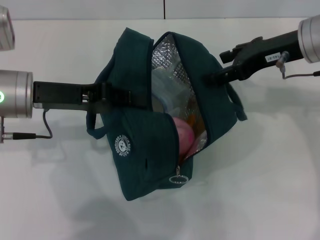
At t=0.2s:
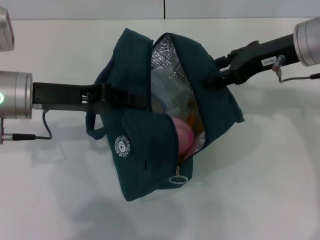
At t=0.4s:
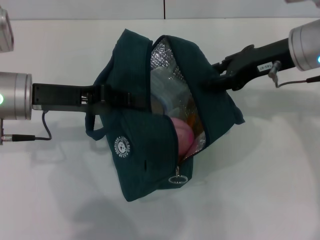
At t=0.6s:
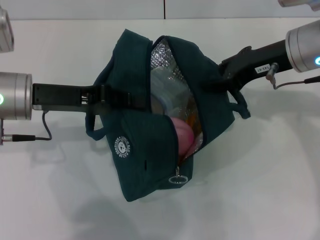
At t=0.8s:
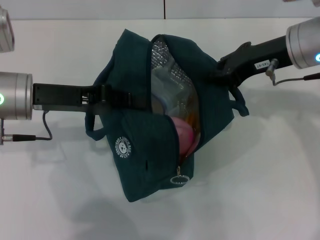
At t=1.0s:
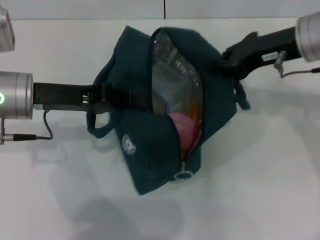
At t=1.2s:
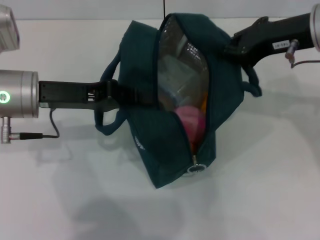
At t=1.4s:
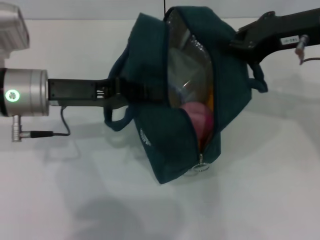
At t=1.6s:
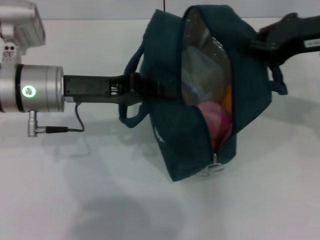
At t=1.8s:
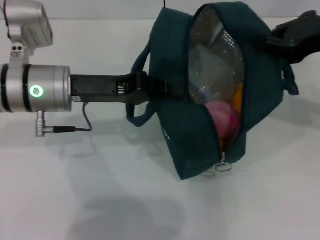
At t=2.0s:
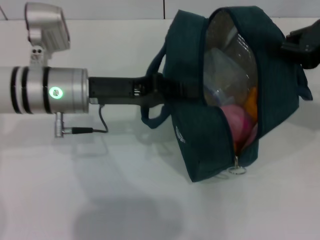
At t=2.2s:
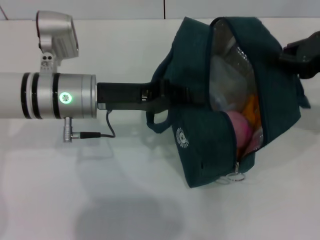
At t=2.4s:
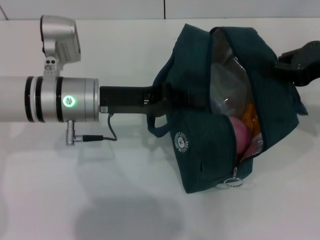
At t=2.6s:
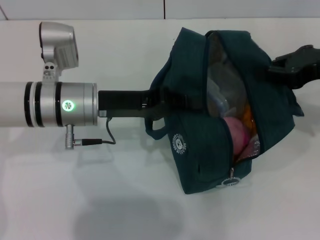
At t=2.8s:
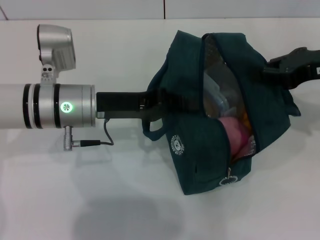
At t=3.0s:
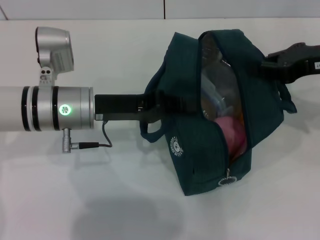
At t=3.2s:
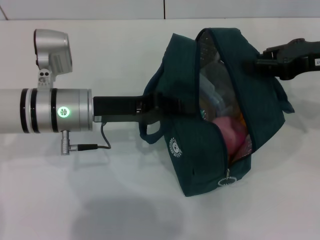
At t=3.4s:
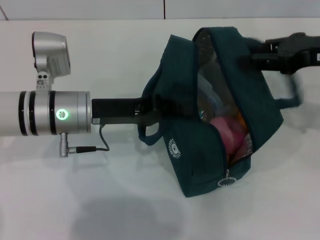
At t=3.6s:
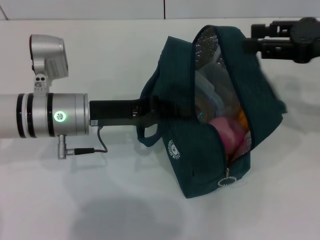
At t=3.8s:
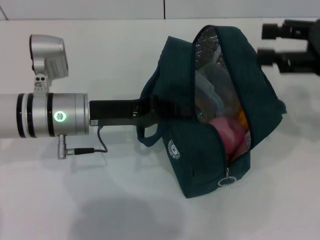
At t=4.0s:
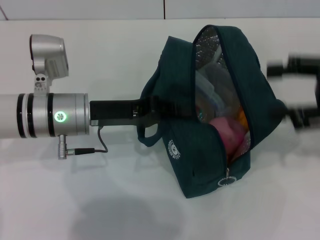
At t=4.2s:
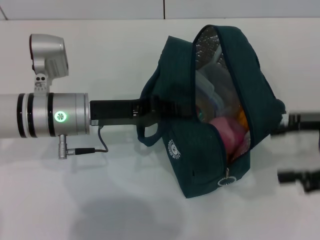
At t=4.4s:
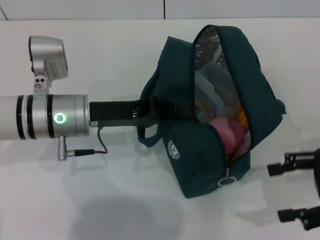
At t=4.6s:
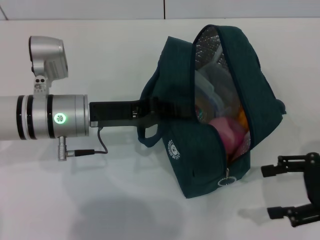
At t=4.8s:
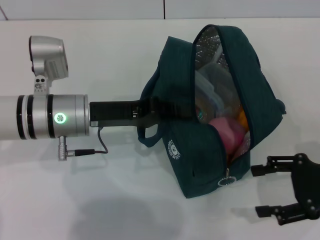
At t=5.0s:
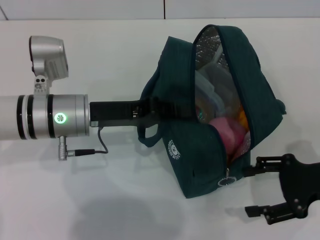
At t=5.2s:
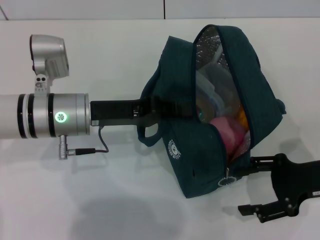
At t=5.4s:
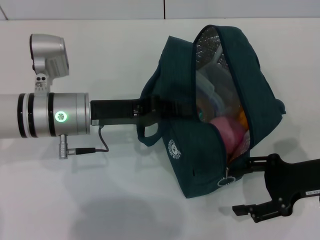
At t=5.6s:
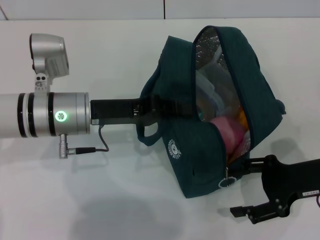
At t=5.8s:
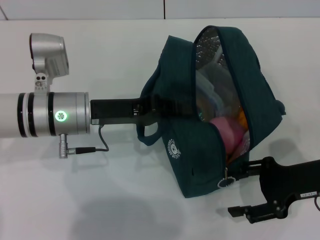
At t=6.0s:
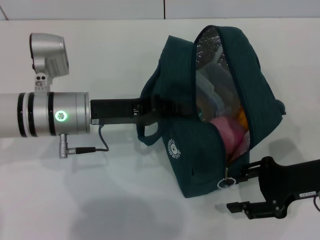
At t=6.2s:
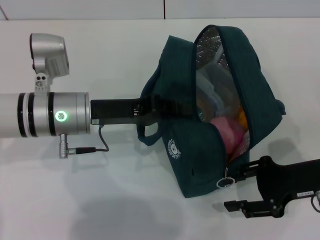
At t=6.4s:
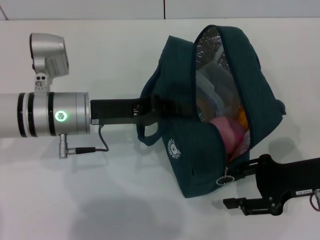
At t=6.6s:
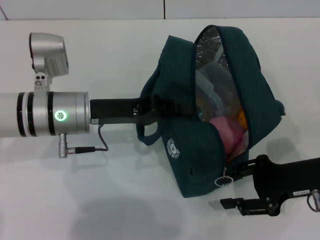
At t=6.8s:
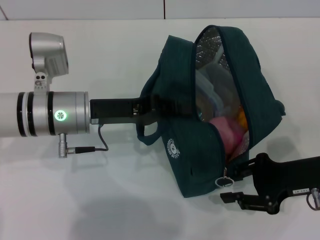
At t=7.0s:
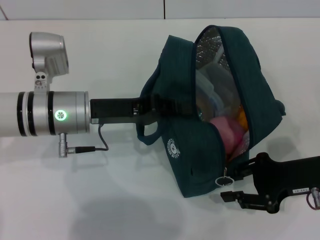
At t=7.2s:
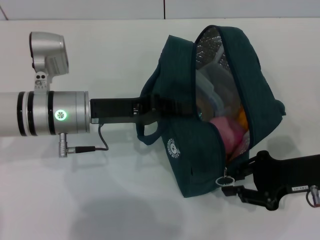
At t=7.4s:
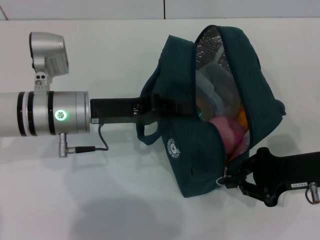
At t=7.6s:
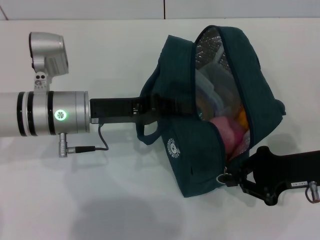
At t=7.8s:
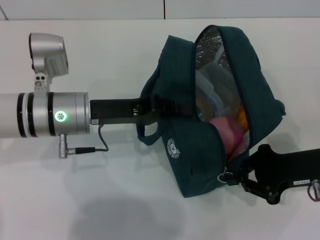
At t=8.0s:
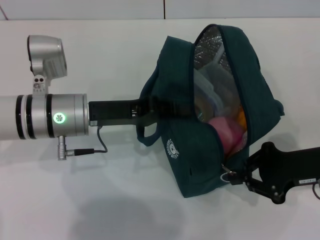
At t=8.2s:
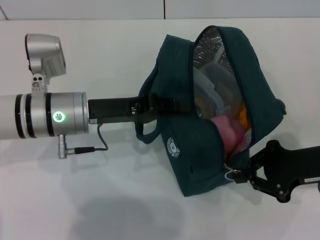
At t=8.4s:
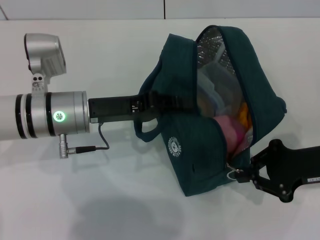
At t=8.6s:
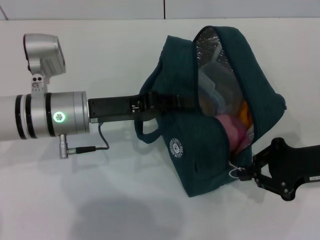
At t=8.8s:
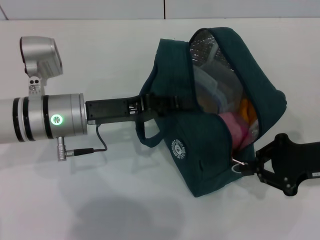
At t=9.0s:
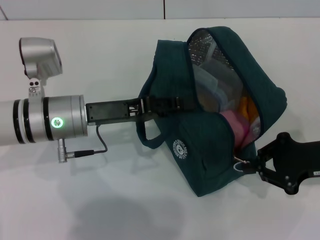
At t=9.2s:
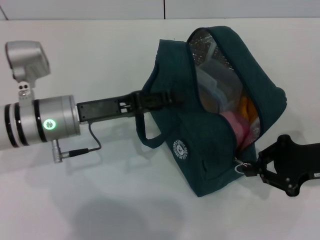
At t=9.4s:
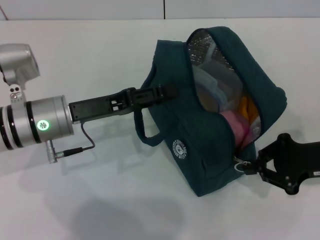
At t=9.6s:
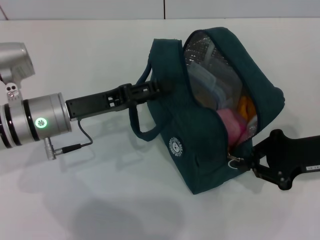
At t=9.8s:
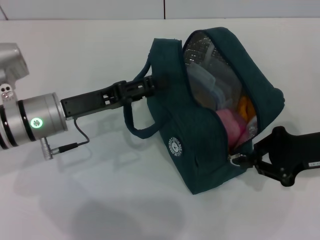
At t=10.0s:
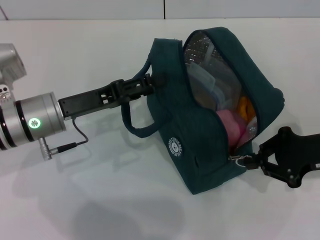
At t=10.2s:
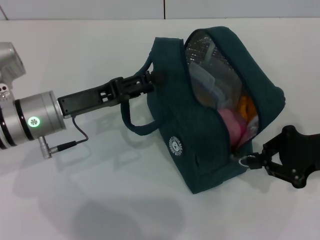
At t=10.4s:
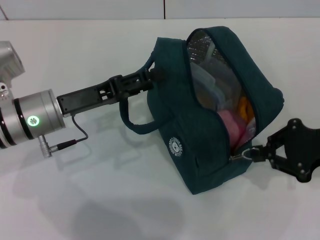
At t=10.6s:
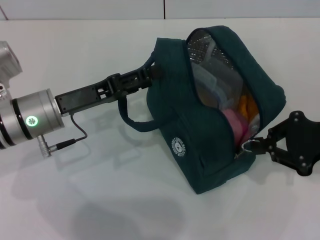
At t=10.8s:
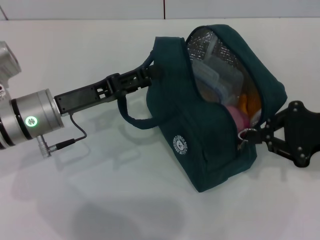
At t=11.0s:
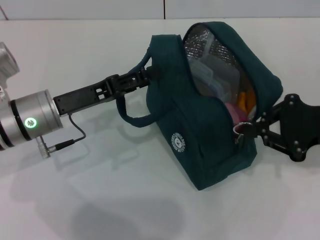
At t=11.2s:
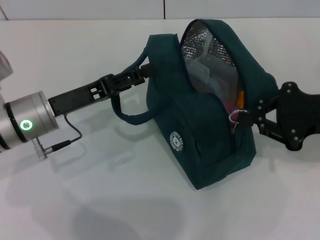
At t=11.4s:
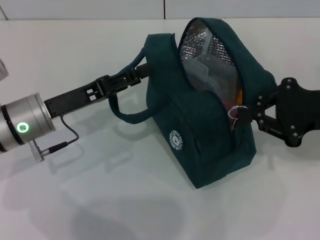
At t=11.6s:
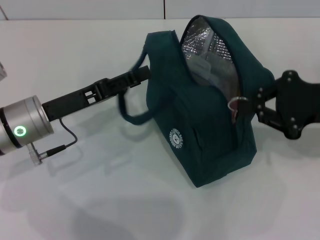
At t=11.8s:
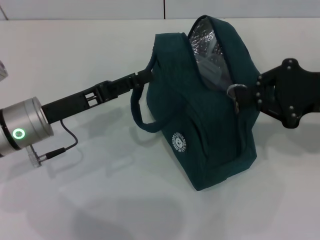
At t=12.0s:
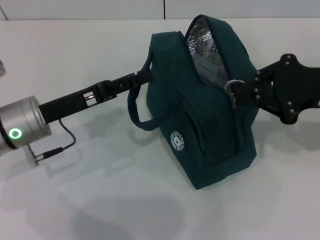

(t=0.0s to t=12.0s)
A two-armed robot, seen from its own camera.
Step, t=0.0s - t=3.6s: Hold the lunch bag with your right hand.
Step, t=3.8s - t=9.6s: Hold the lunch bag with your left hand.
t=0.0s - t=1.6s: The right gripper ends up roughly 5 cm from where it was, and closes up.
t=1.6s - t=3.0s: The right gripper moves roughly 5 cm.
t=3.0s - t=4.4s: The right gripper shifts approximately 10 cm backward and downward, and opens up.
t=4.4s - t=6.0s: The right gripper is displaced downward and to the left by approximately 10 cm.
t=6.0s - t=7.6s: The right gripper closes up.
t=7.6s - t=9.0s: The grippers move only a little.
t=9.0s - t=10.4s: The left gripper opens.
t=10.4s - t=12.0s: The right gripper shifts by approximately 5 cm.

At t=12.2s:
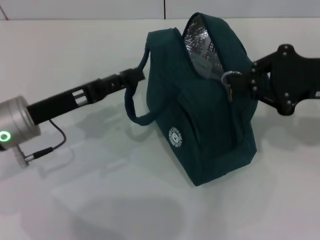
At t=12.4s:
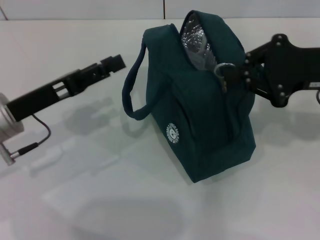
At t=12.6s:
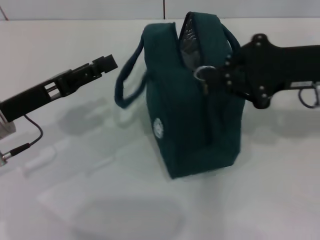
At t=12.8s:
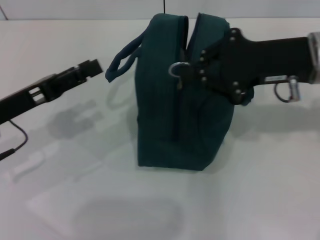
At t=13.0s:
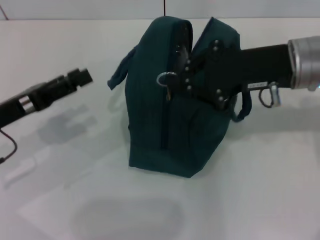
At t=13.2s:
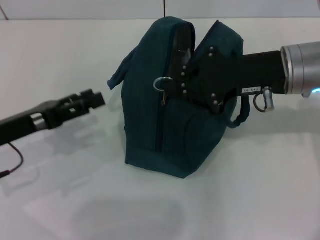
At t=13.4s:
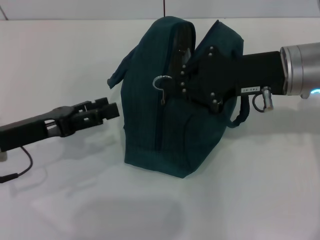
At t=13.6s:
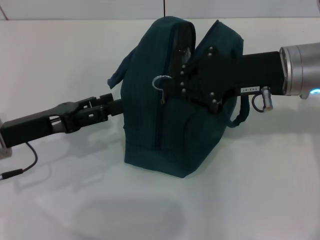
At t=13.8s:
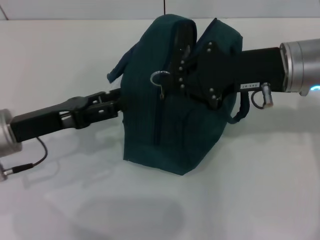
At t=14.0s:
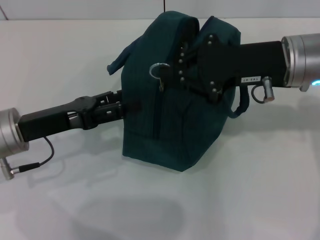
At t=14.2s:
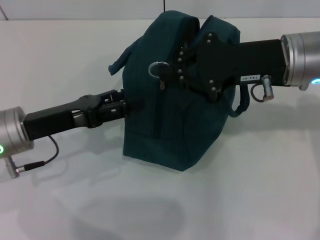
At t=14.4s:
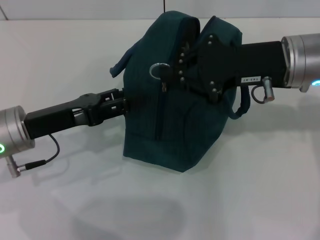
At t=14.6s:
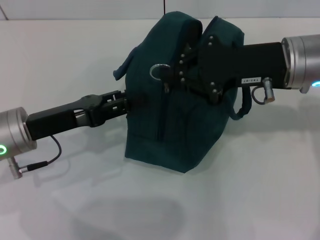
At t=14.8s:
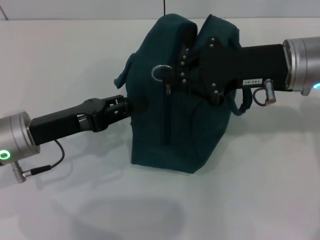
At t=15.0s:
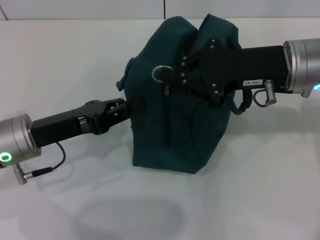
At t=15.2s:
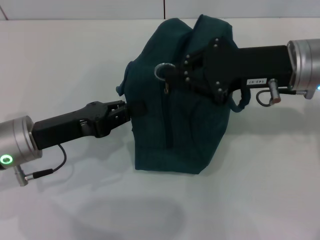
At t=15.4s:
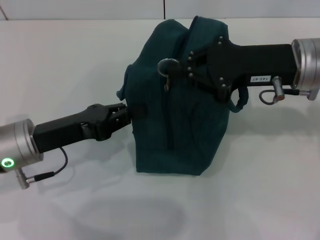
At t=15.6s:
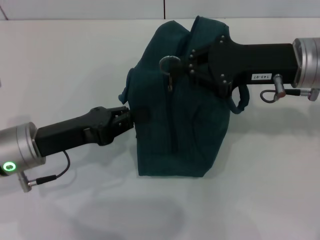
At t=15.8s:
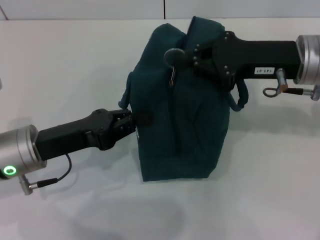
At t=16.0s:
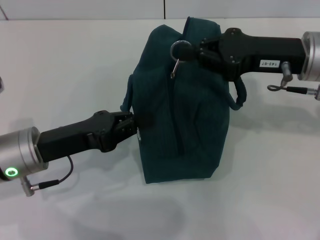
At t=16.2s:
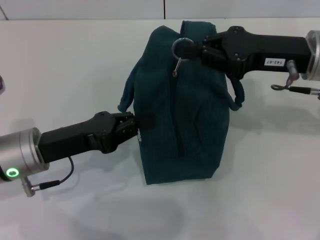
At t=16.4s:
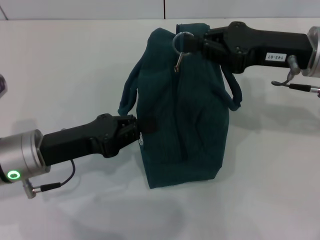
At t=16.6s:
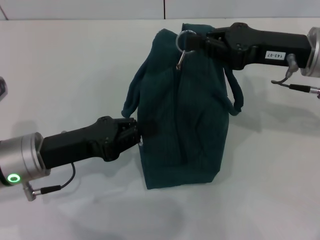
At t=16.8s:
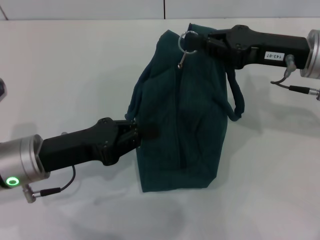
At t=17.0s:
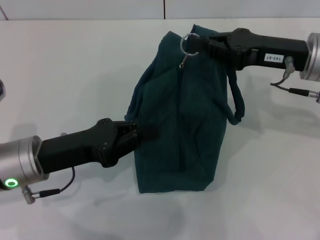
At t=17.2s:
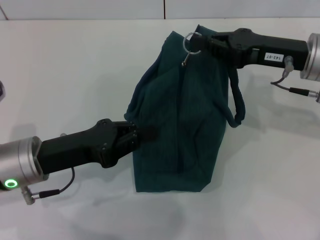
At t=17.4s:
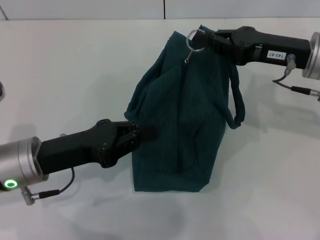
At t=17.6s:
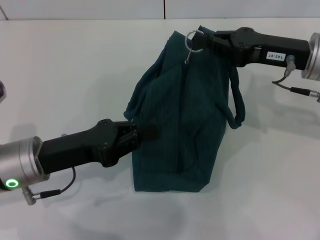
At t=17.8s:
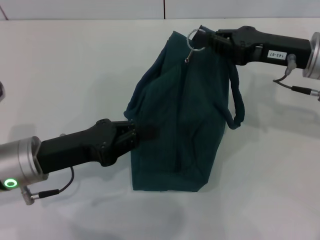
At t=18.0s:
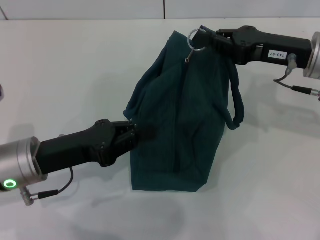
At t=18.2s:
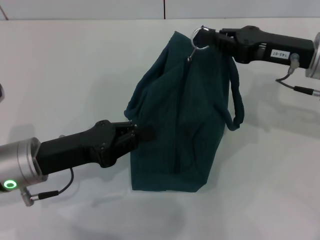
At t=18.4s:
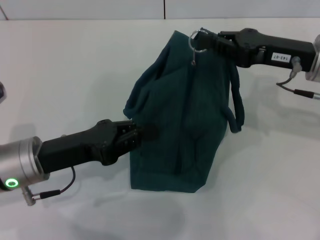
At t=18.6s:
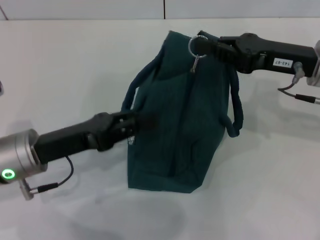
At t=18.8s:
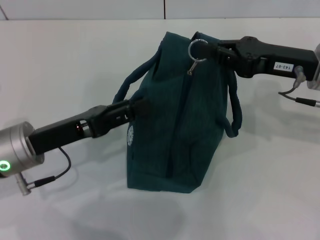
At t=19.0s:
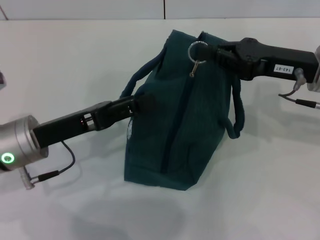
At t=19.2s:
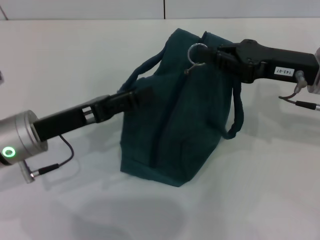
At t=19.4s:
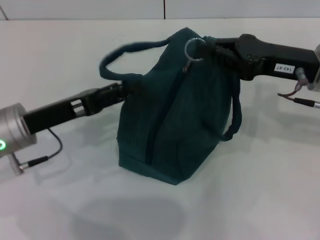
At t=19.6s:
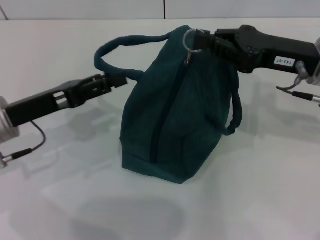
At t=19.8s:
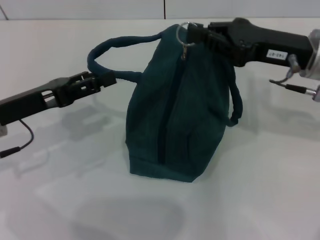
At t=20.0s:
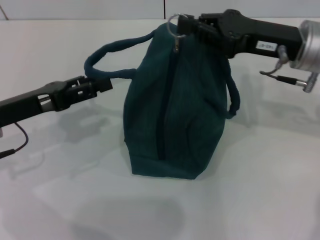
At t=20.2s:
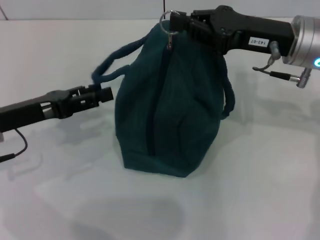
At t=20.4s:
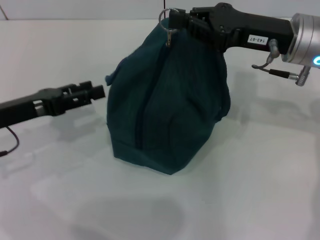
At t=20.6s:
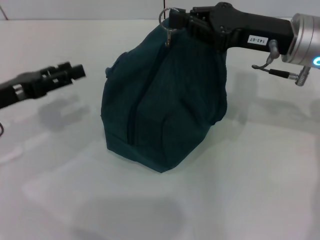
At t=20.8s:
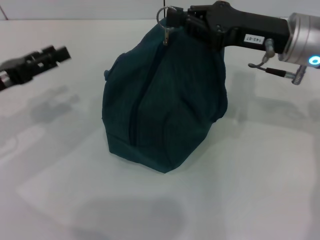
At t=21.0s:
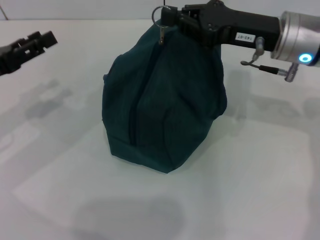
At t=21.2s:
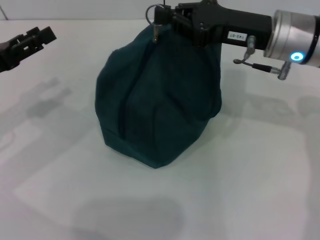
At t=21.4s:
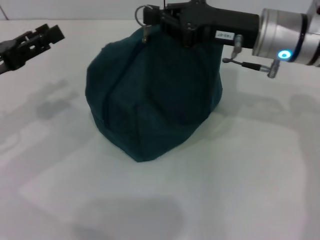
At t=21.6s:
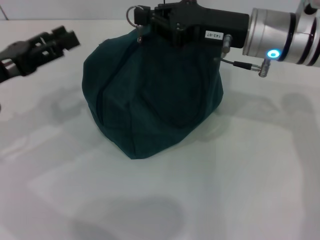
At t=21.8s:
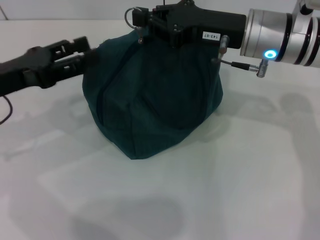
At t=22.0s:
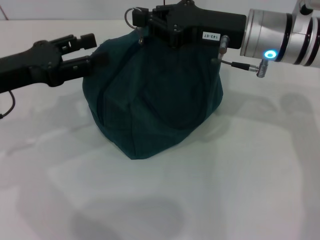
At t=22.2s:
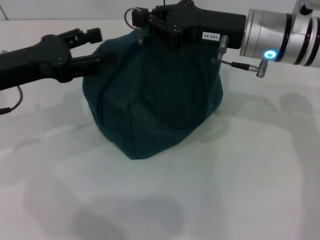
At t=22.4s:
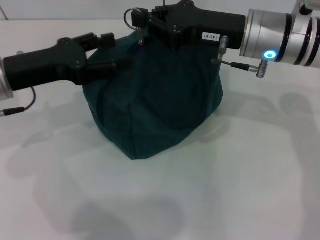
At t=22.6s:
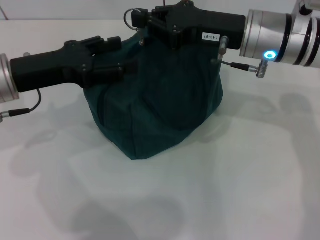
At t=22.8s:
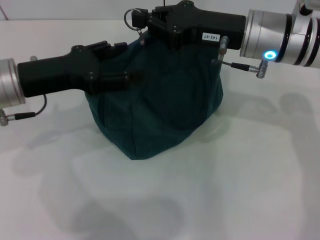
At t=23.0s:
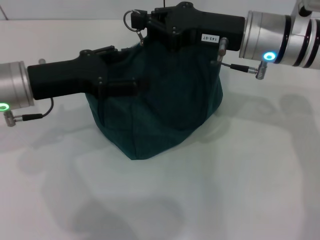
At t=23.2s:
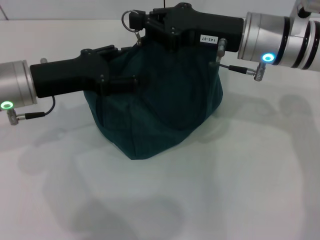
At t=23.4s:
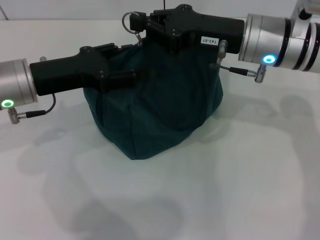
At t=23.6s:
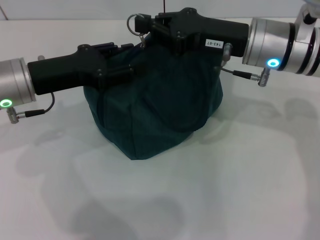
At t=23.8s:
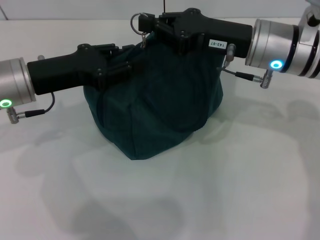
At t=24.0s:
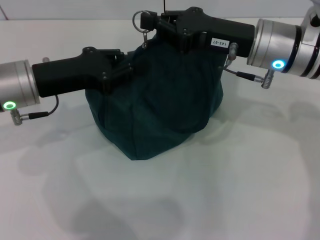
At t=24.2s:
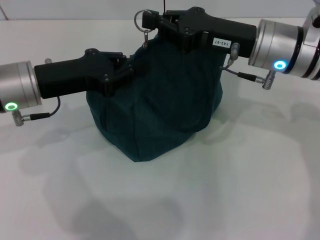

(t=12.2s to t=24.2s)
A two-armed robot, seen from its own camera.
t=12.2s - t=13.8s: The right gripper goes roughly 10 cm to the left.
t=13.8s - t=15.2s: The left gripper closes up.
t=16.6s - t=18.2s: There are only small adjustments of the grippers.
t=18.2s - t=19.8s: The left gripper changes place by roughly 5 cm, and opens its fingers.
t=19.8s - t=21.2s: The left gripper goes approximately 5 cm to the left, while the right gripper shifts by about 5 cm.
t=21.2s - t=22.6s: The left gripper heads to the right, covering about 10 cm.
t=22.6s - t=24.2s: The left gripper closes.
